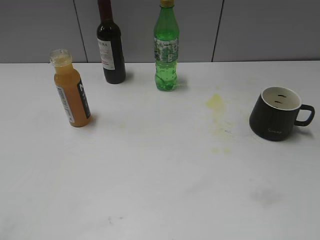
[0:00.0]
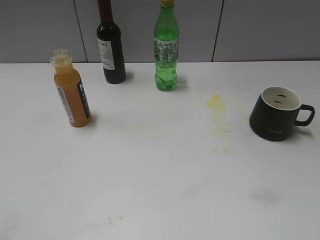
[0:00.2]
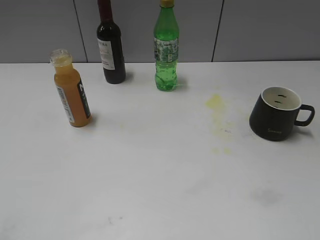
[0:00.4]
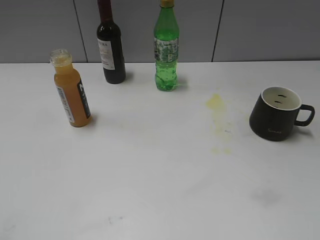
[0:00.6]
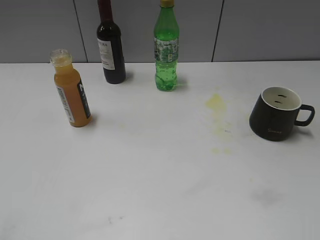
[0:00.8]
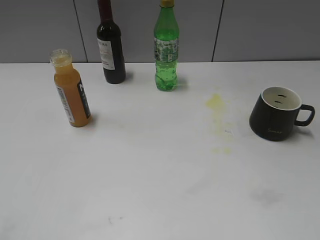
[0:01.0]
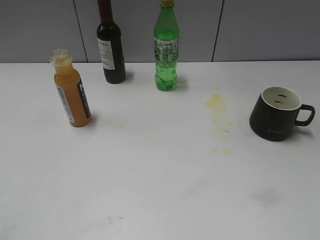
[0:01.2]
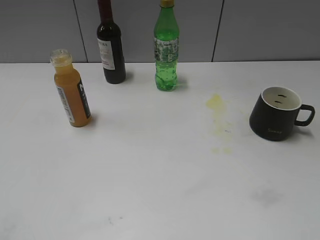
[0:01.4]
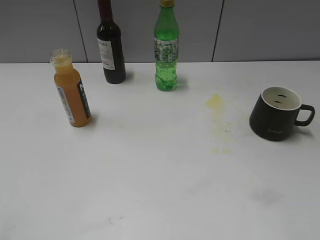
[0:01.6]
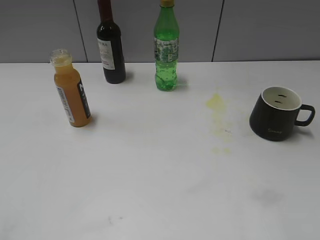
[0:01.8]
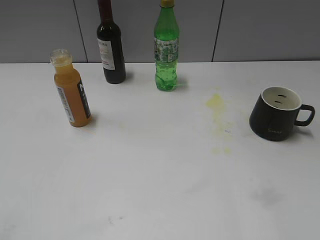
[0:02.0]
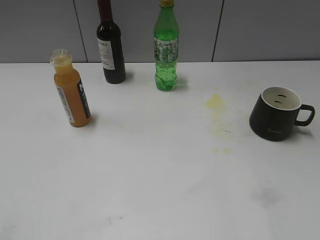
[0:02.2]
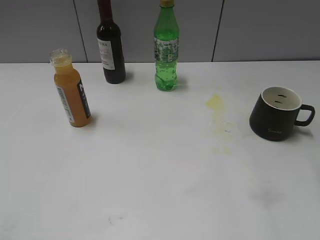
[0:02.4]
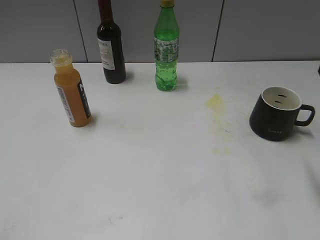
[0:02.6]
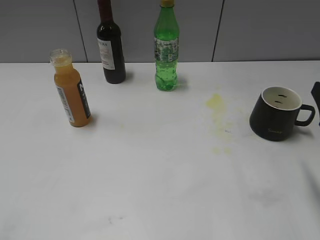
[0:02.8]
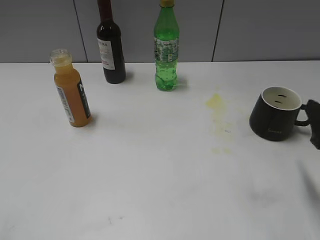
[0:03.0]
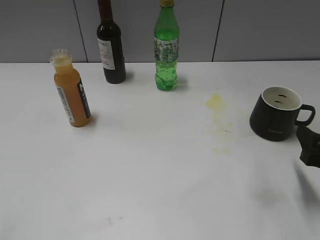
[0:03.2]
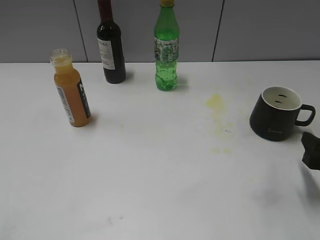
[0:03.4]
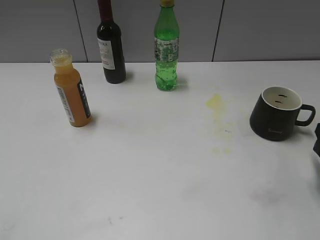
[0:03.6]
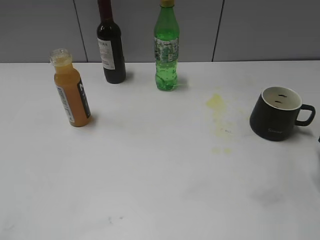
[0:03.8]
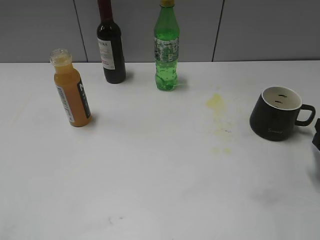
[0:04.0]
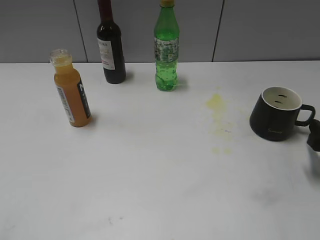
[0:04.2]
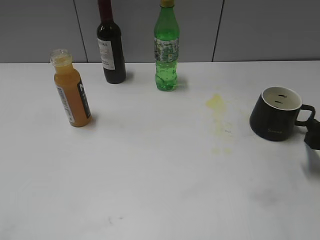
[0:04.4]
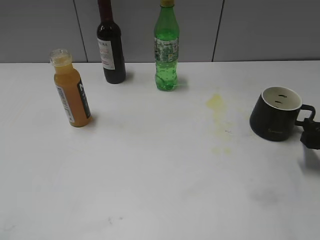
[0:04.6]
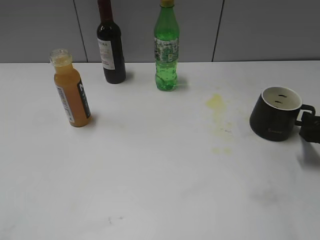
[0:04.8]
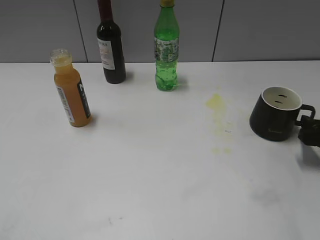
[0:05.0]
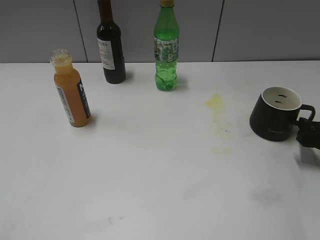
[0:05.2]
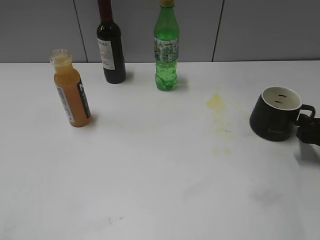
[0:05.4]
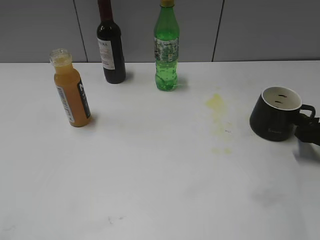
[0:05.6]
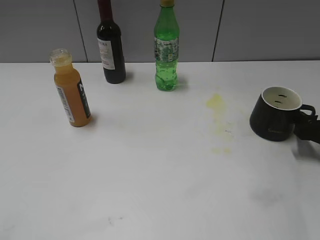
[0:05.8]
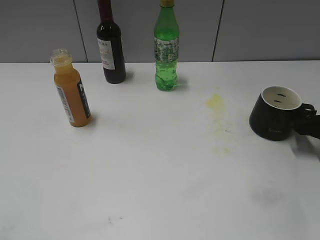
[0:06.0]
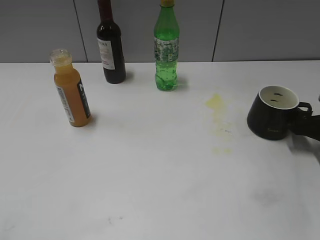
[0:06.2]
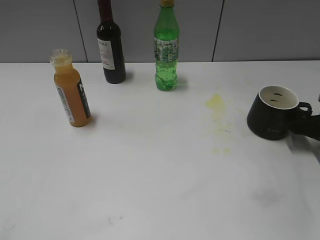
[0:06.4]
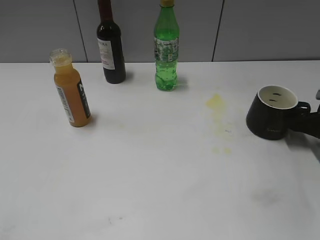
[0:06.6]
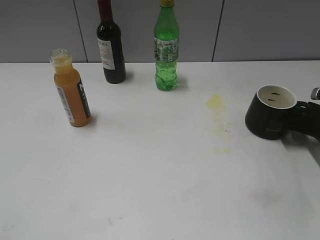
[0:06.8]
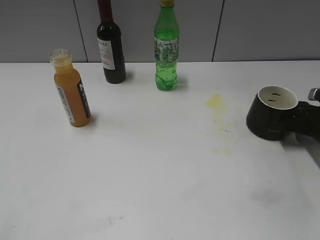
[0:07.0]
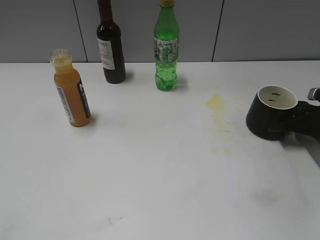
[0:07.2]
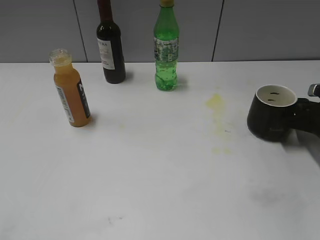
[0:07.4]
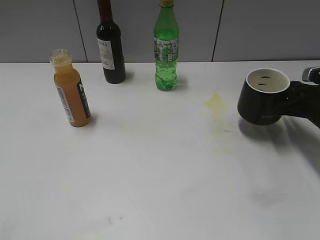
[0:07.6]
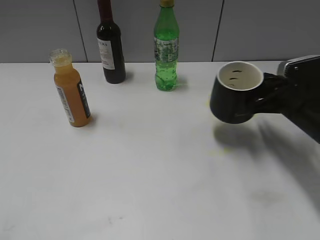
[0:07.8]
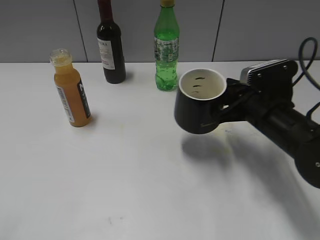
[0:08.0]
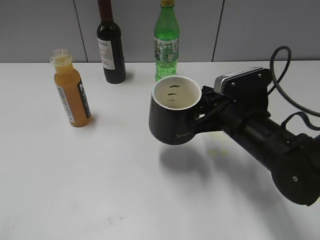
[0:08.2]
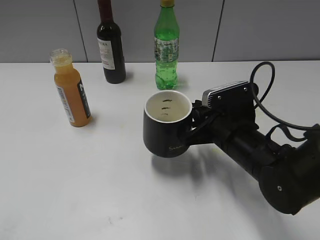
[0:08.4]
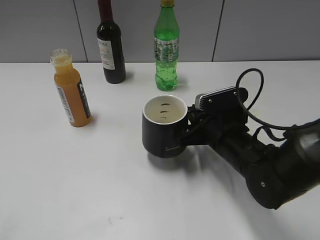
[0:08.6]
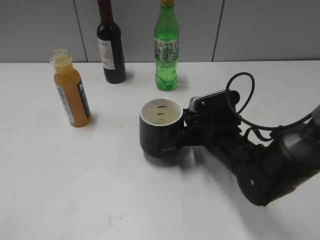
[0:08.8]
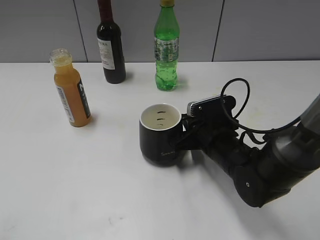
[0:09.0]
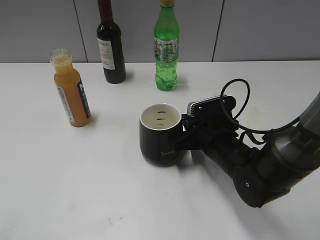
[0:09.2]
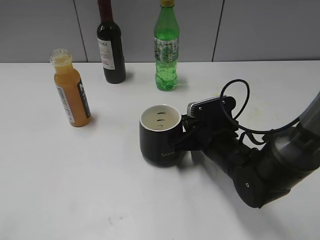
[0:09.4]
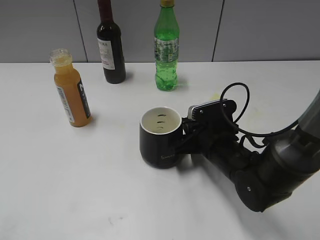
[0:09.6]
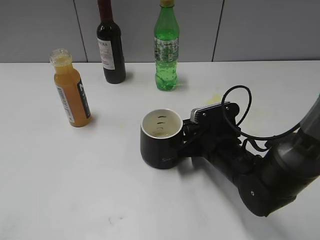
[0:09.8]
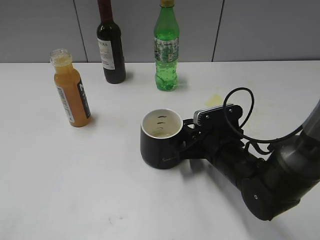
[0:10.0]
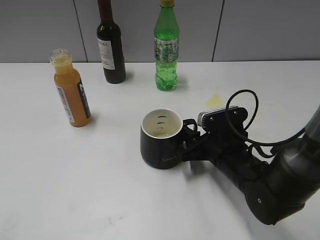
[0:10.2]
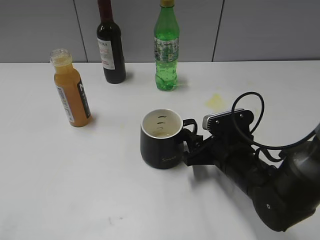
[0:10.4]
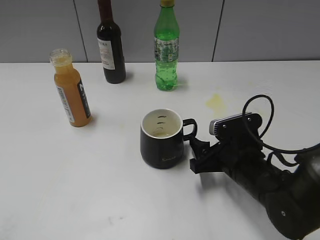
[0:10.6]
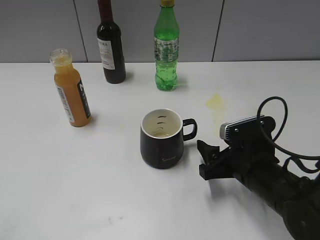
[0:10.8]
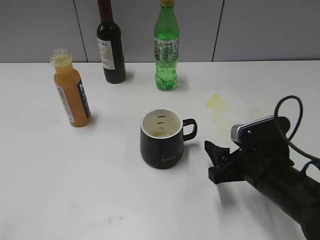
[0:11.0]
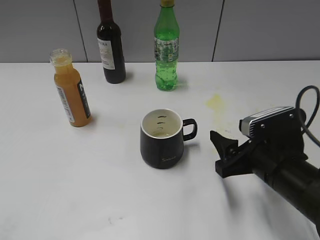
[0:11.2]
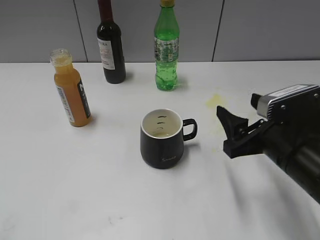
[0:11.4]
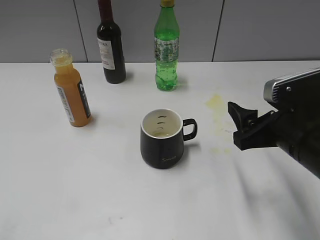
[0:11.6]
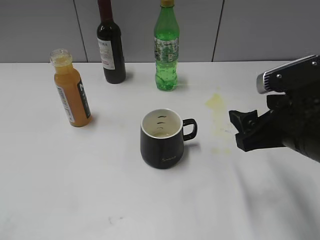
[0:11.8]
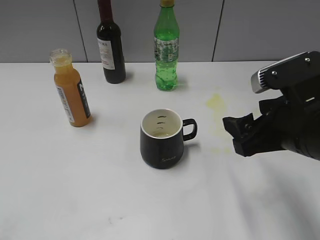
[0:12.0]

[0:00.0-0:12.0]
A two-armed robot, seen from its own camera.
Step, 0:02.6 to 0:07.4: Grasp the black cup with right gripper.
Step, 0:07.6 to 0:10.6: Place the black cup in the center of view with right gripper.
0:01.6 to 0:03.0: The right gripper heads forward and downward, covering some 20 cm.
0:03.0 to 0:04.4: The right gripper is displaced downward and forward by roughly 10 cm.
0:04.4 to 0:06.0: The right gripper is displaced forward by about 5 cm.
0:06.0 to 0:07.6: The right gripper closes.
0:07.6 to 0:09.0: The right gripper goes roughly 20 cm to the left.
0:09.0 to 0:10.4: The right gripper opens its fingers.
0:10.4 to 0:12.0: The right gripper is displaced upward and backward by roughly 15 cm.

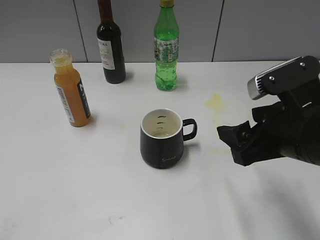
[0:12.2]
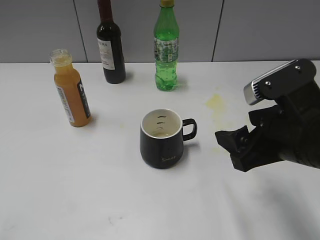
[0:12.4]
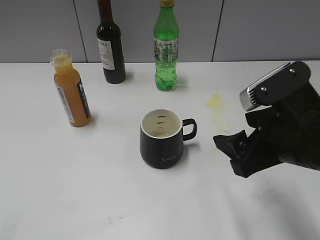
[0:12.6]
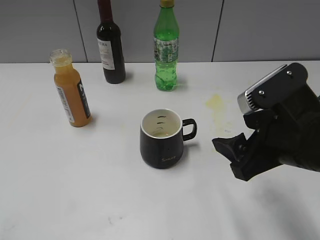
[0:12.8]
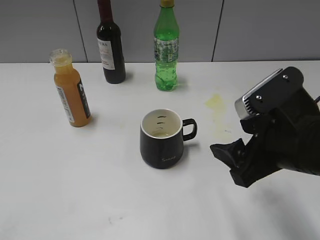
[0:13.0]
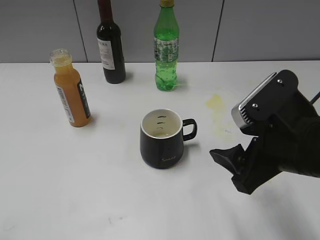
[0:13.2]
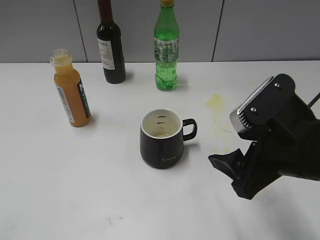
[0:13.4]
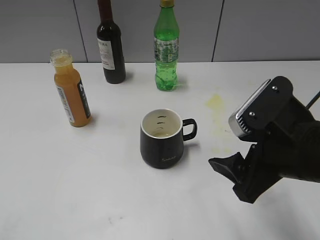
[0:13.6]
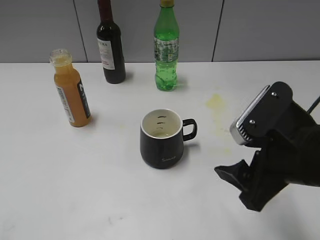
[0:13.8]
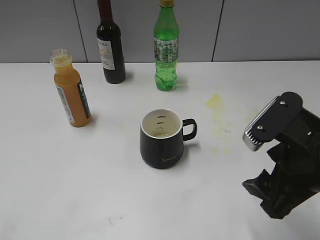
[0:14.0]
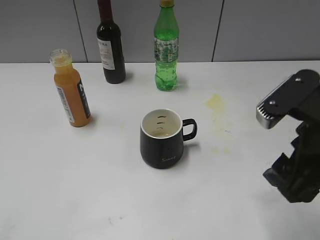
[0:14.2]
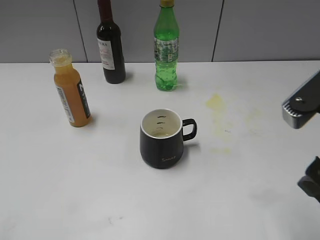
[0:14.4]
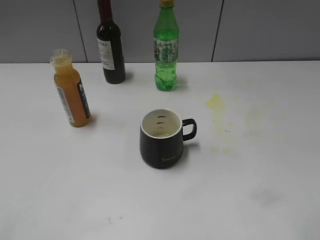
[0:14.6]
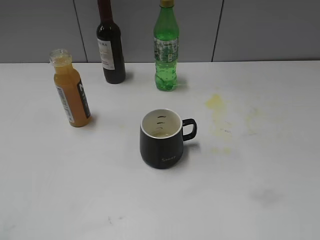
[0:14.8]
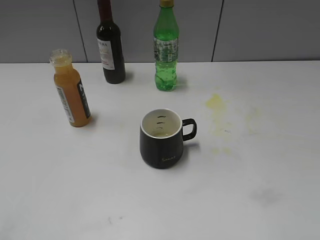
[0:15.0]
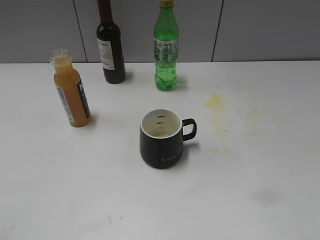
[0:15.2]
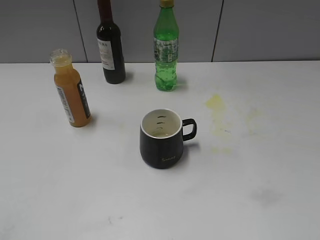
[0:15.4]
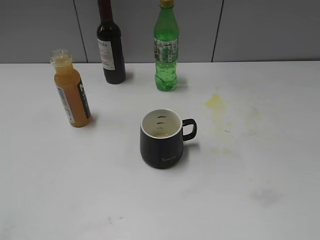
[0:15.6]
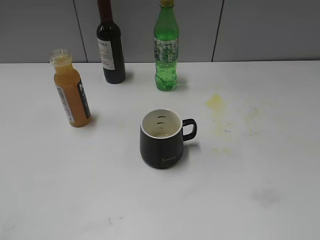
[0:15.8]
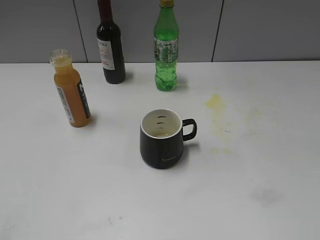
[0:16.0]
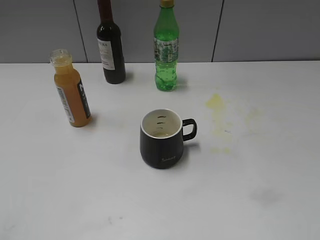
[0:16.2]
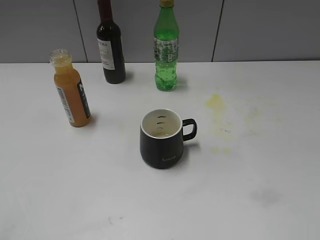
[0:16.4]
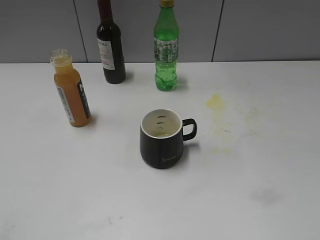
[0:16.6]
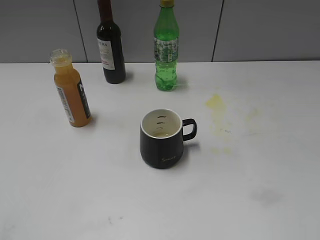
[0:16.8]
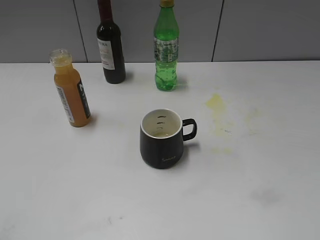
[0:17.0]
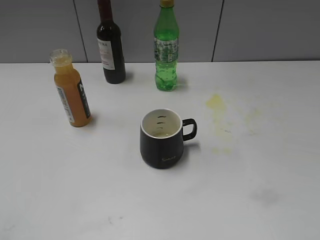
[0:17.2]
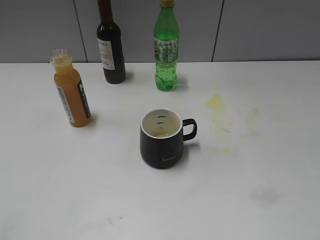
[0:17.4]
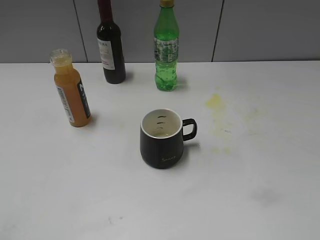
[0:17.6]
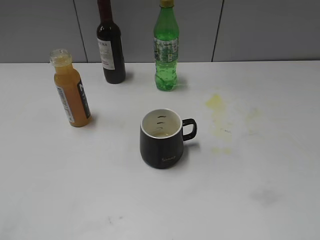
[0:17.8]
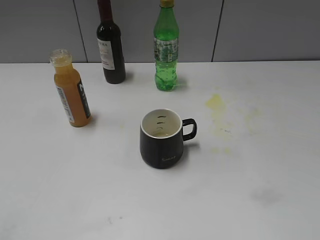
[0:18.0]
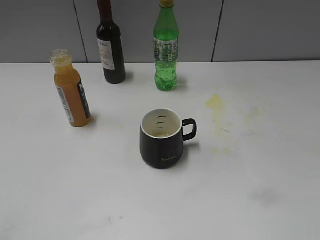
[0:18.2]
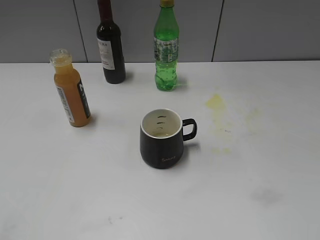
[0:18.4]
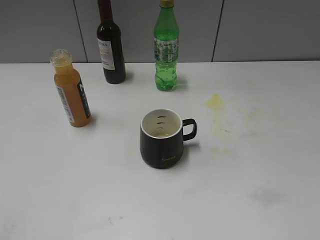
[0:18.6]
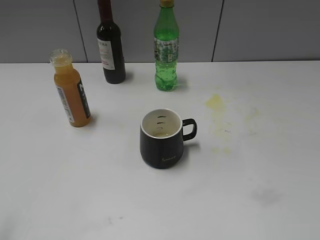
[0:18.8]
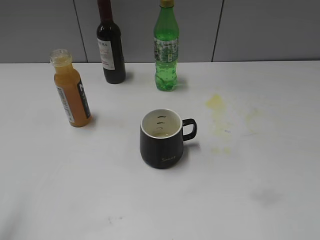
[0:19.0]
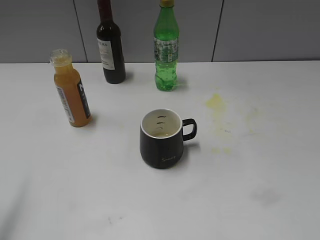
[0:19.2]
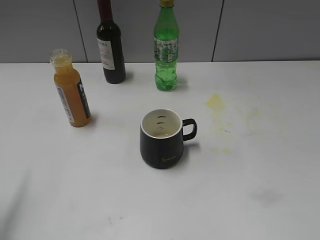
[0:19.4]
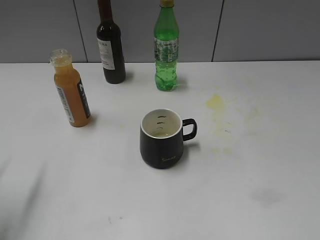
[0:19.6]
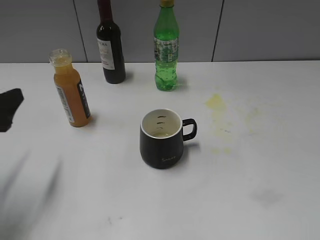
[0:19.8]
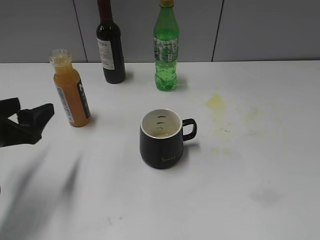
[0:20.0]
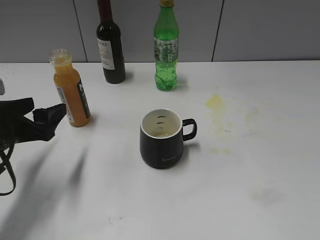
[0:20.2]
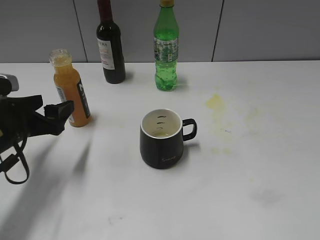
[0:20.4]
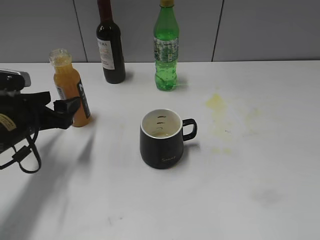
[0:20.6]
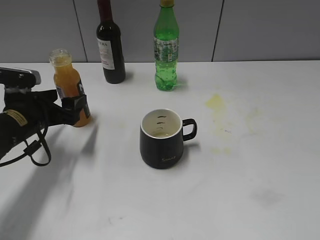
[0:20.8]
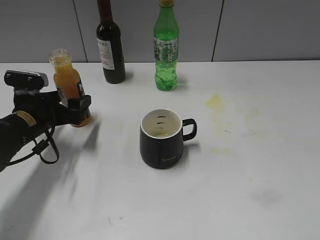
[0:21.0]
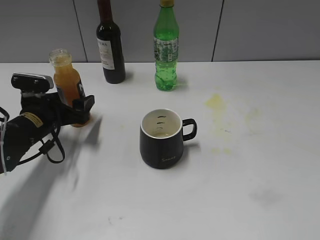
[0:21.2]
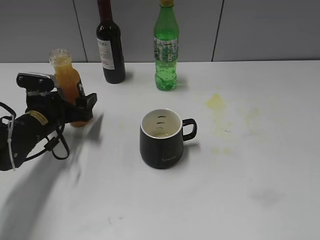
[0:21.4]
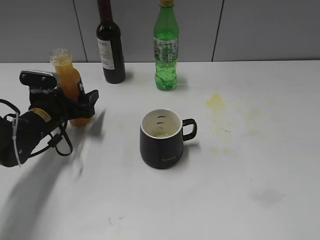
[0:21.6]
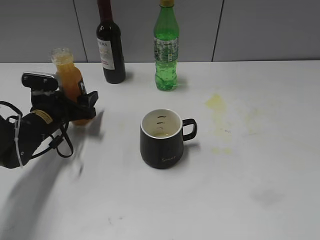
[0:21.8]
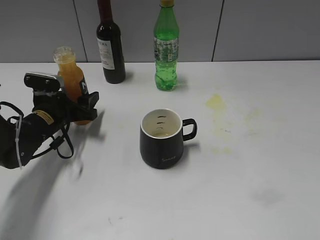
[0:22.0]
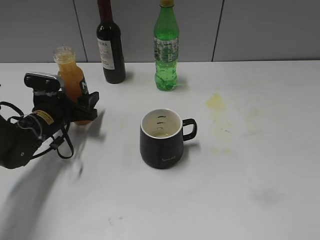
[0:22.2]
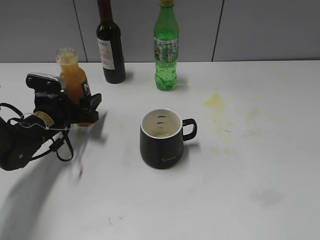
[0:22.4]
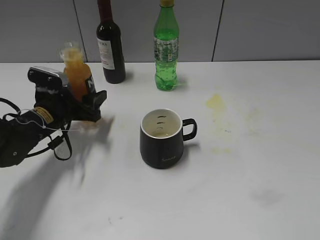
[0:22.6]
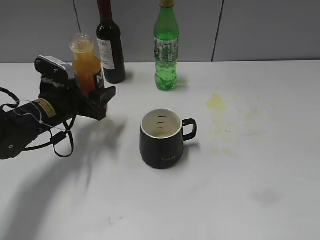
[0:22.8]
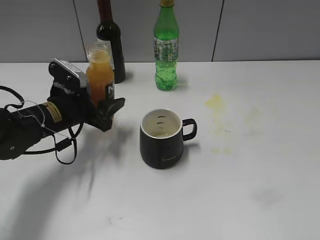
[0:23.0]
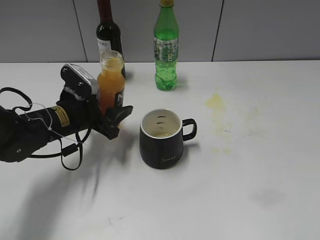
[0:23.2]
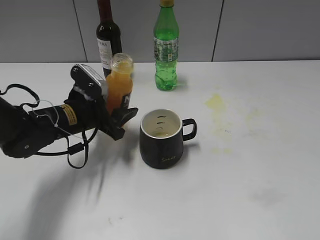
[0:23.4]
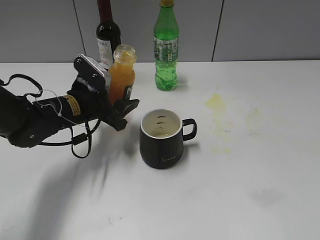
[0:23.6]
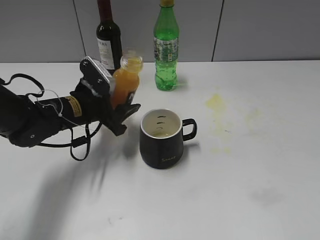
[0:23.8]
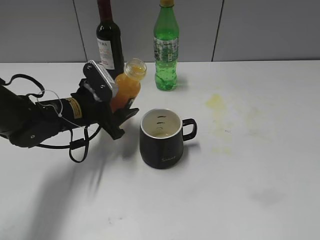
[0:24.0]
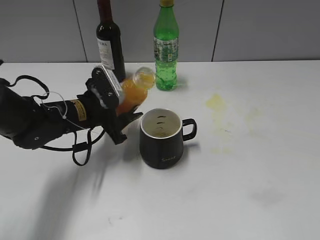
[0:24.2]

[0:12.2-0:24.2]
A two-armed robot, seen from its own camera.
Step, 0:12.2 to 0:22.4: Grasp the bottle with orange juice with left gripper.
0:13.8 to 0:15.2: The right gripper moves backward, to the right and upward, some 20 cm.
0:18.2 to 0:19.8: The left gripper is displaced forward by about 20 cm.
0:19.8 to 0:21.2: The left gripper is displaced forward, downward and to the right by approximately 20 cm.
0:21.2 to 0:22.6: The left gripper closes up.
0:22.6 to 0:24.2: The left gripper is displaced to the right by about 5 cm.
